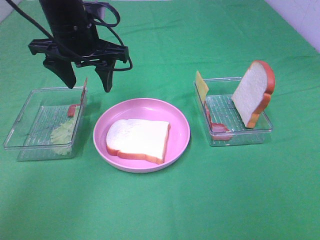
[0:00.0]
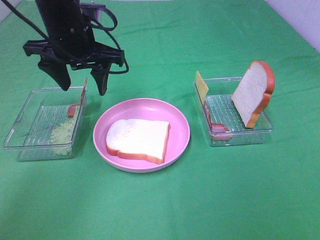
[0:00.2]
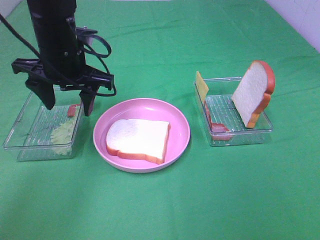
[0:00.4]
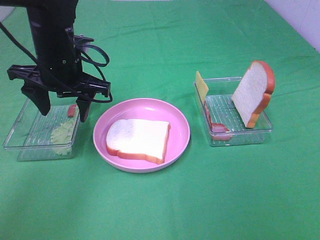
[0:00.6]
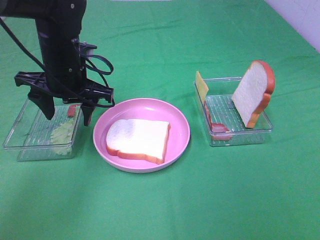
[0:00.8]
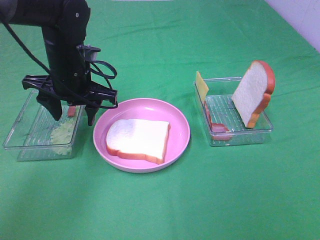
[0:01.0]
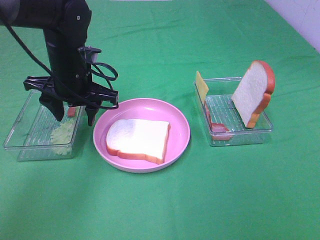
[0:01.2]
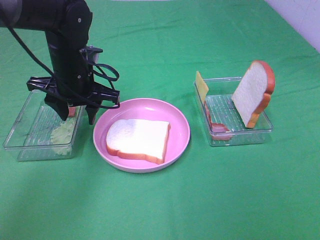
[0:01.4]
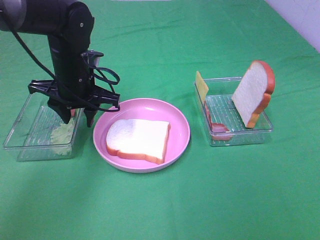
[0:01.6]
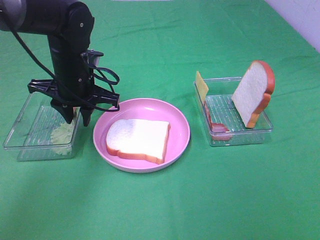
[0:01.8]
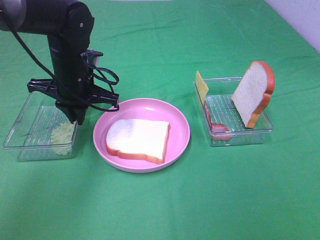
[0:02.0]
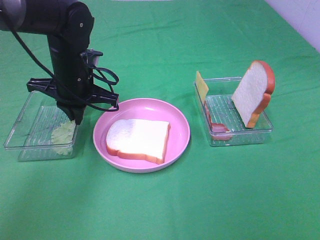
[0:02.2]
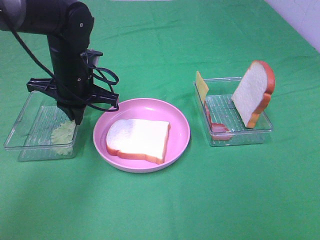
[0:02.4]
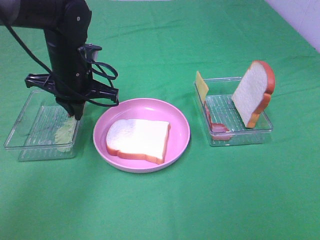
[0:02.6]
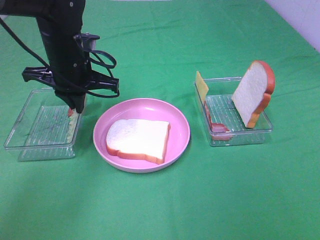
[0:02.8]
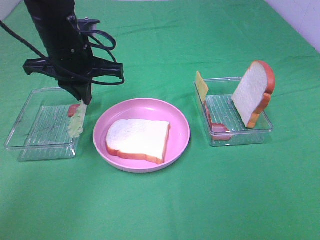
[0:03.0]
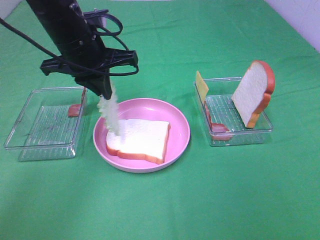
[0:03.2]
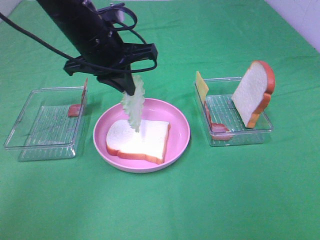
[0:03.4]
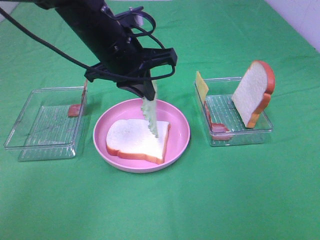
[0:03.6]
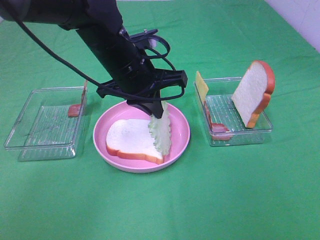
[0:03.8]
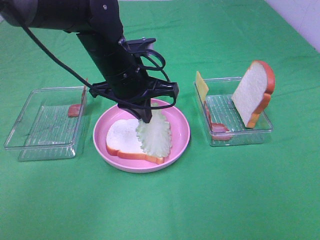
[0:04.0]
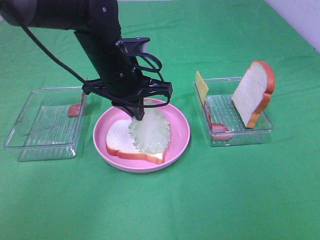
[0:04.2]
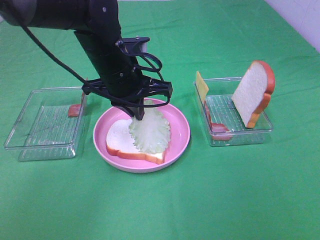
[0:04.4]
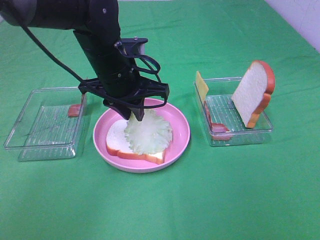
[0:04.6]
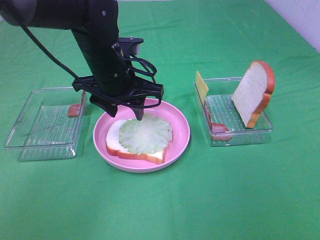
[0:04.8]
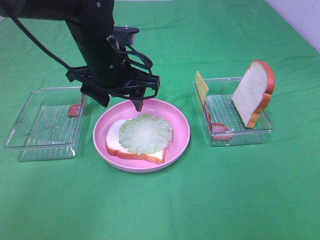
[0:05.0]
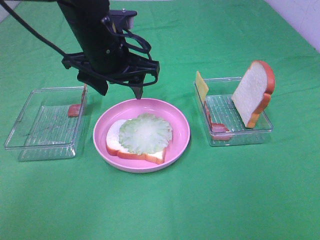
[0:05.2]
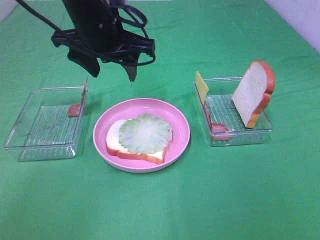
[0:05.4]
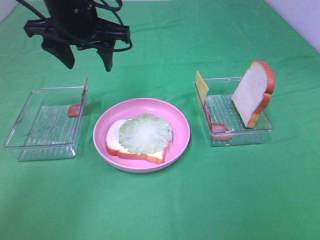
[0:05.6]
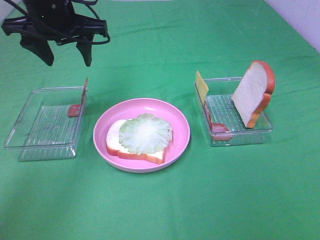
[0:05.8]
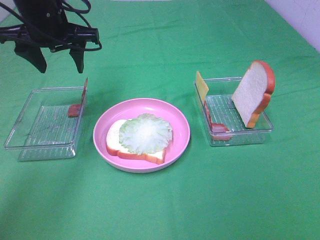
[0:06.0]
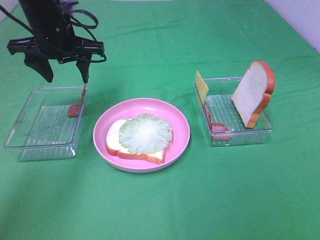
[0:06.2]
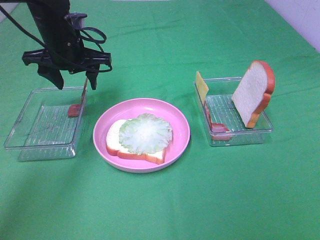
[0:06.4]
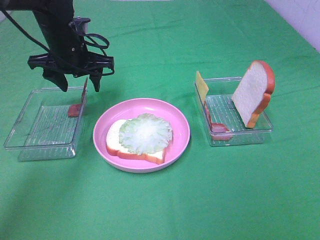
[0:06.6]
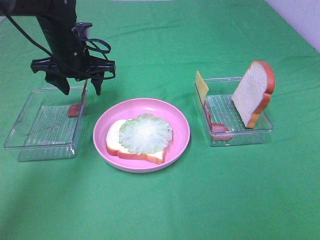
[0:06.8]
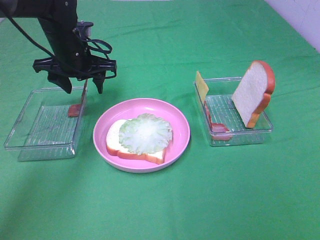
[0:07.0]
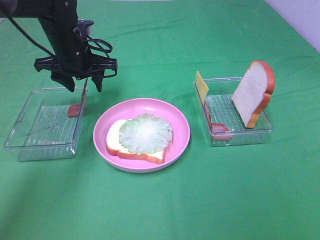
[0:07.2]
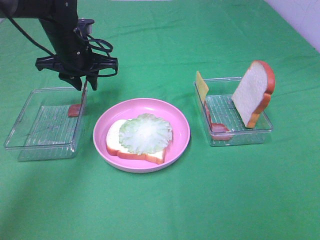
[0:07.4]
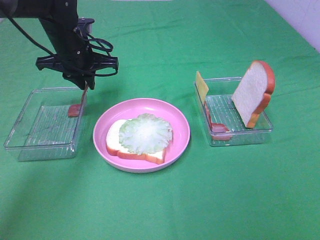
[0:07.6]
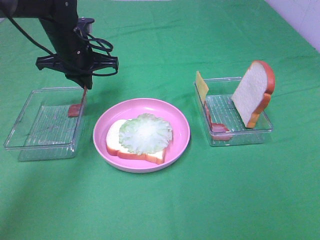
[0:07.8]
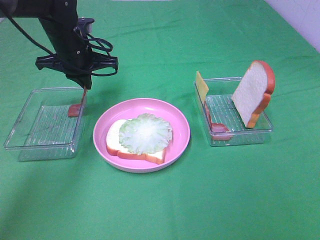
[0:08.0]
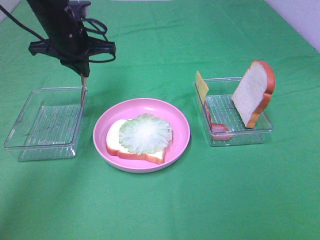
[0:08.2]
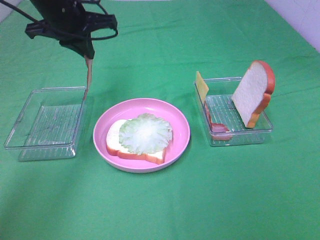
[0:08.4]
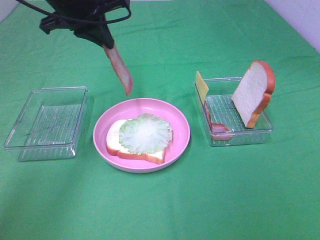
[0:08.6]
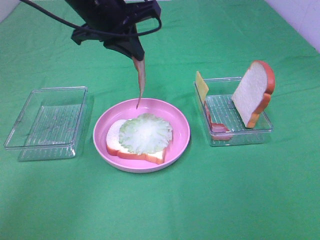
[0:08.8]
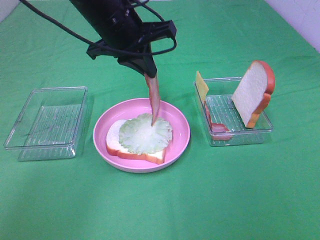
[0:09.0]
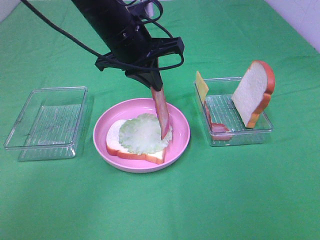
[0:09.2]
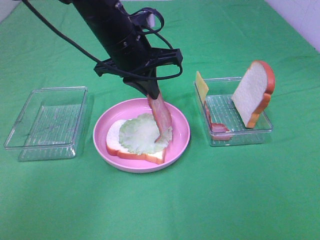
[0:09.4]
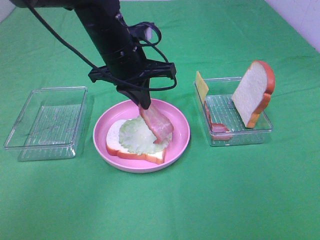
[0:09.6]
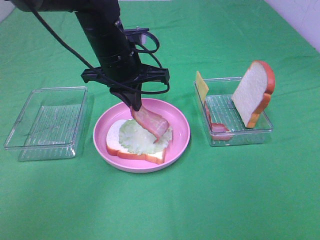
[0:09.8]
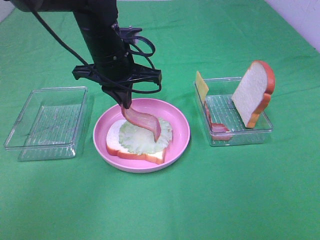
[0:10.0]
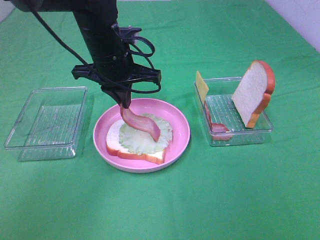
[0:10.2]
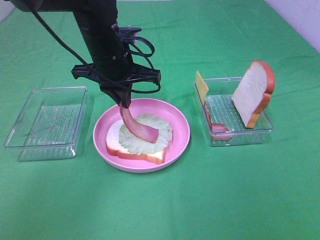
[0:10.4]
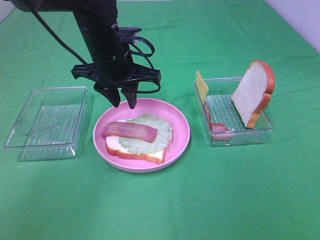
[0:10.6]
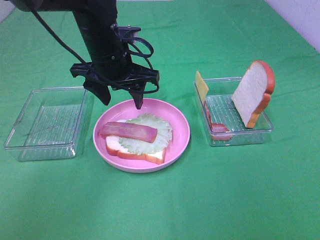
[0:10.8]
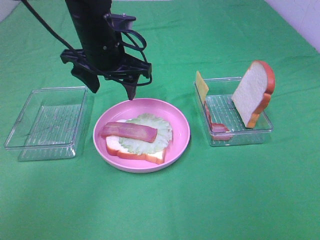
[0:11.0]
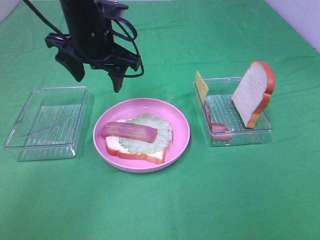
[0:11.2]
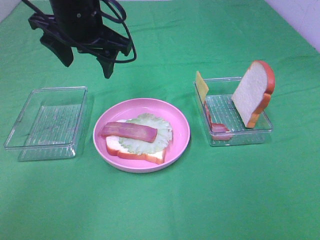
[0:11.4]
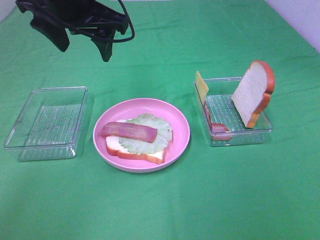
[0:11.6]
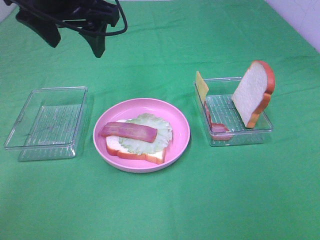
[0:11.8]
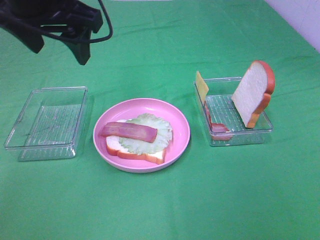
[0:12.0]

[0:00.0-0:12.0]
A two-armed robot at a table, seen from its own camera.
Task of the whole recording: Make sandwiches.
Step, 0:00.0 to 0:02.4: Left hand:grab the lettuce slice.
Step, 0:02.6 to 0:04.6: Left hand:place the lettuce slice on the bread slice.
Step, 0:04.8 to 0:08.0: Left hand:grab the bacon.
Step, 0:08.2 to 0:10.6: Left hand:place bacon on lettuce slice.
0:00.0 to 0:01.6: The left gripper shifts about 10 cm downward.
0:01.6 to 0:03.0: The left gripper goes about 5 cm upward, and closes up.
0:03.0 to 0:04.4: The left gripper is displaced to the right by about 5 cm.
0:04.4 to 0:06.0: The left gripper travels to the left, upward and forward by approximately 15 cm, and opens up.
0:06.0 to 0:07.6: The left gripper is displaced downward by about 10 cm, and closes up.
0:07.6 to 0:09.0: The left gripper shifts approximately 15 cm to the right, upward and backward.
0:09.0 to 0:10.4: The left gripper shifts roughly 5 cm downward.
0:10.4 to 0:12.0: The left gripper shifts about 15 cm upward, backward and to the left, and opens.

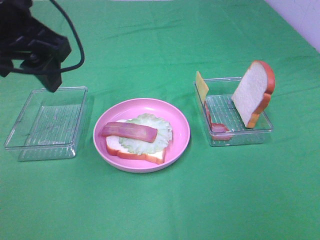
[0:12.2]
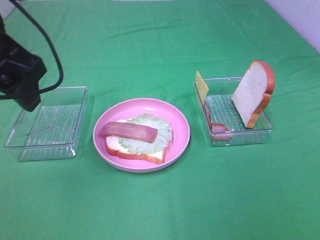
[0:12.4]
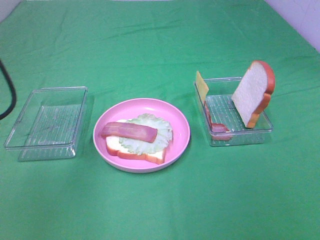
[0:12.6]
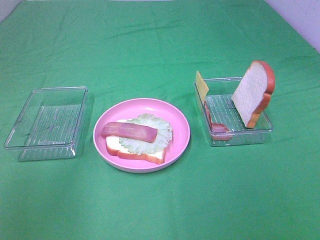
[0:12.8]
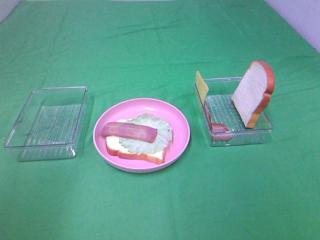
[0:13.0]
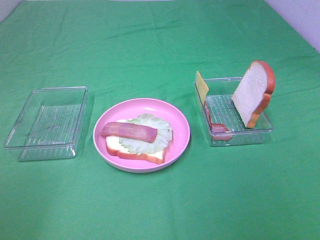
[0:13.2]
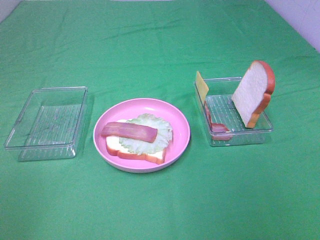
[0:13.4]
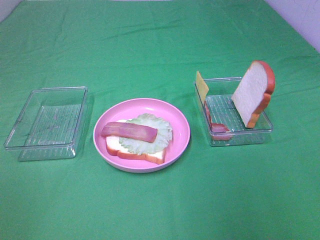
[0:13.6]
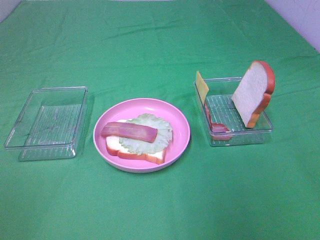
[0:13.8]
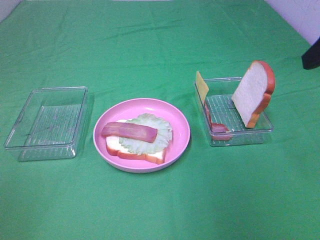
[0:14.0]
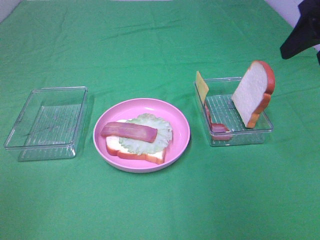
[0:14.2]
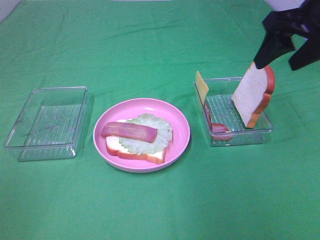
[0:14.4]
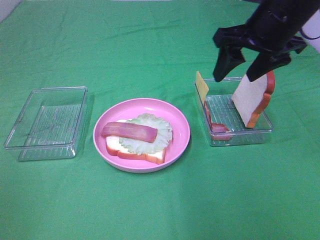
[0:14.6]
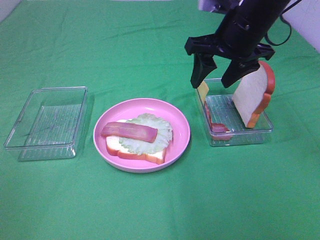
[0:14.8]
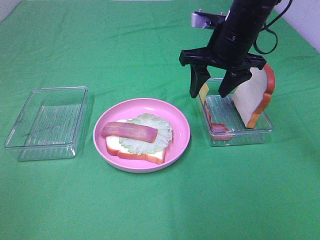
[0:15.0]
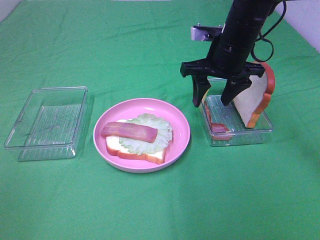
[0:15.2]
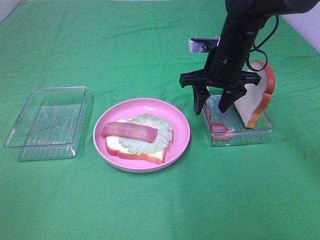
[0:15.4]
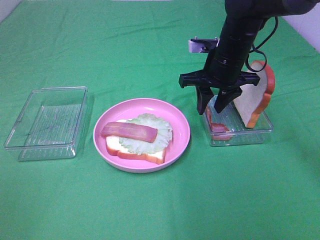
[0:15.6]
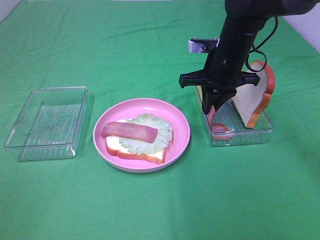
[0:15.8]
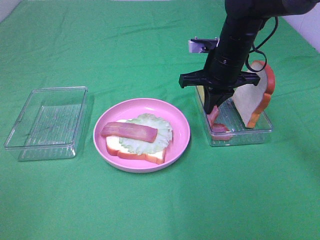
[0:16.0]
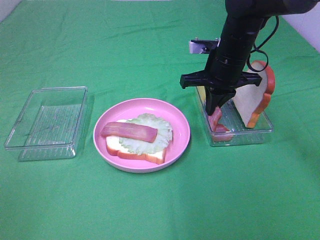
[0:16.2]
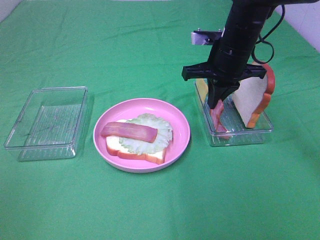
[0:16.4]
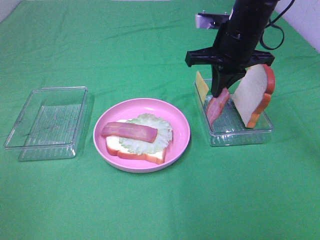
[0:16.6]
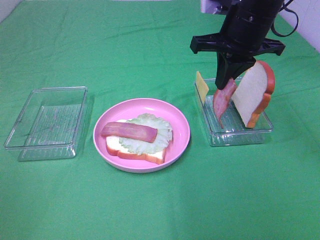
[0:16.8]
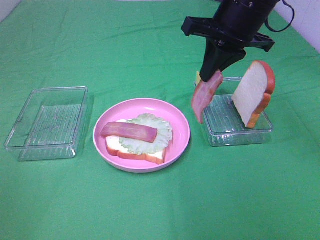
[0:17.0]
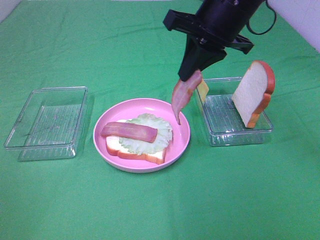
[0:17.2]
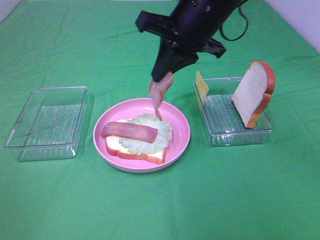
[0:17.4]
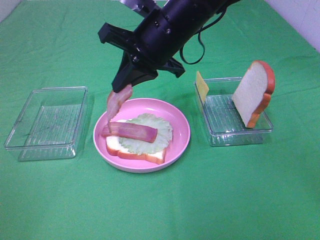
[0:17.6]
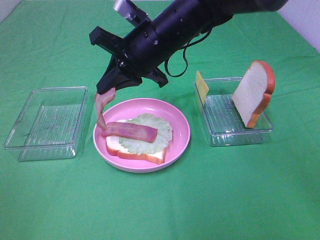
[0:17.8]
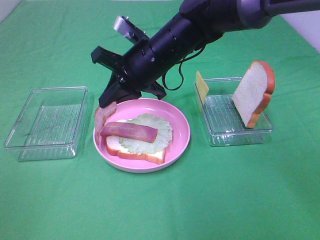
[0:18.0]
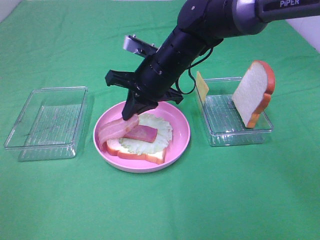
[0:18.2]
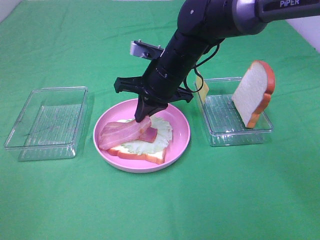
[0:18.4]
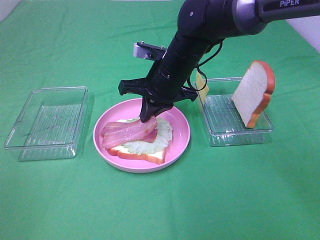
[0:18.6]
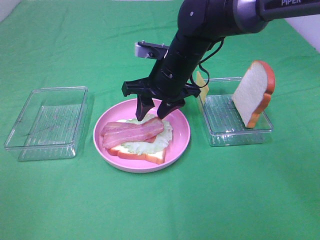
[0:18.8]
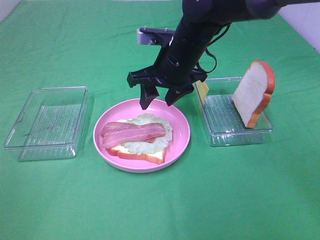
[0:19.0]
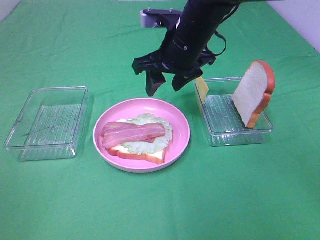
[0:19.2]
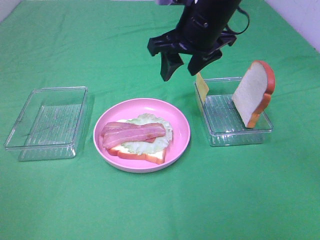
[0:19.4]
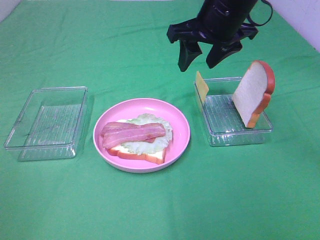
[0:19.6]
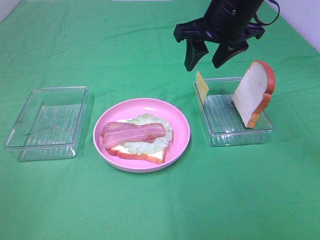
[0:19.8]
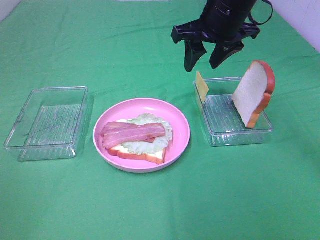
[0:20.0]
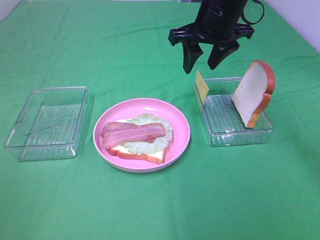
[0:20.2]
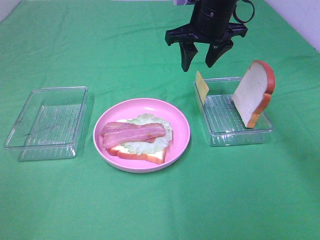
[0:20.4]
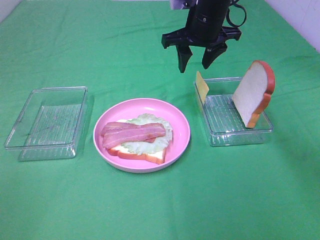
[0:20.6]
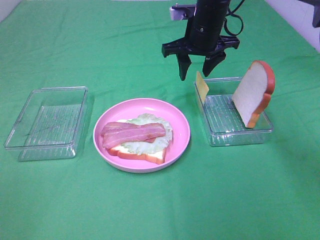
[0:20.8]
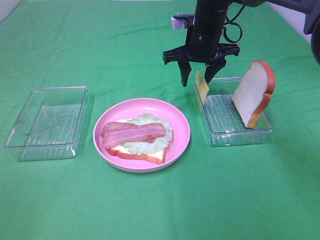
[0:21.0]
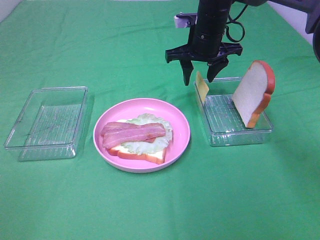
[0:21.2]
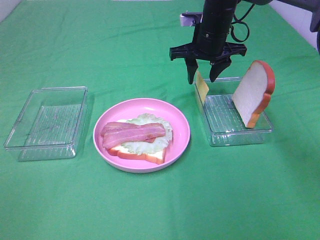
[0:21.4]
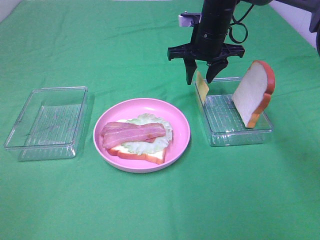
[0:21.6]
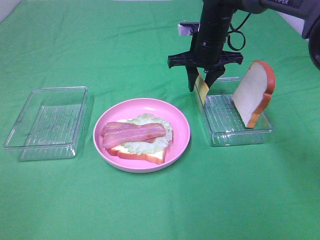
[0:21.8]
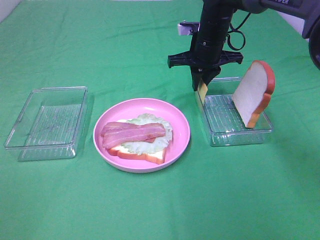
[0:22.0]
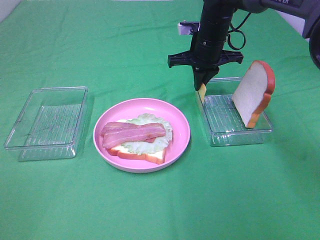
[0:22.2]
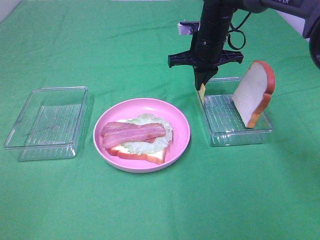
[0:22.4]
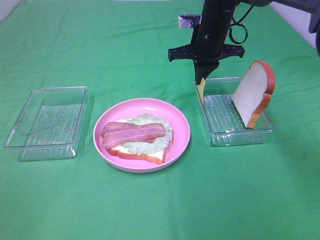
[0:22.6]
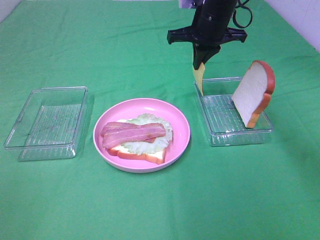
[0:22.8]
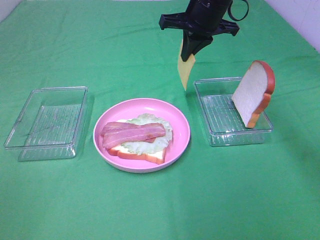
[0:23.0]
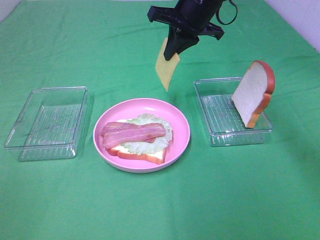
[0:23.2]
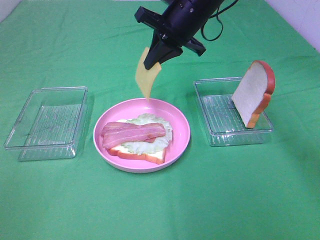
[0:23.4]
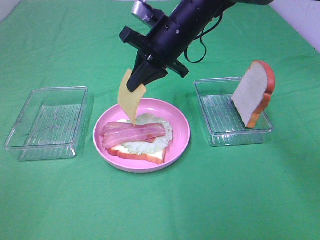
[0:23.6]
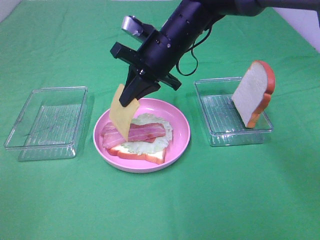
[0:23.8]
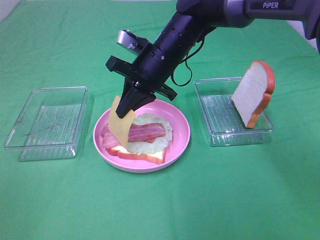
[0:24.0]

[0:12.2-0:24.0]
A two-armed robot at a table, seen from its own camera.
Task of the whole recording: Make sandwiches.
Step, 0:12.2 to 0:16.0: Right hand:grab the bacon.
Step, 0:16.2 to 0:18.8: Right hand:place bacon on bacon.
Step, 0:19.0 to 0:22.4: Right hand:grab the cheese slice.
0:12.2 to 0:13.6: The left gripper is displaced backward and to the left by roughly 30 cm.
0:13.6 to 0:15.2: The right gripper moves forward, to the left and downward, roughly 35 cm.
0:15.2 to 0:16.6: The right gripper closes its fingers.
0:16.6 to 0:18.2: The right gripper shifts about 15 cm to the left and downward.
0:18.2 to 0:19.6: The right gripper goes some 15 cm upward and to the right, and opens its fingers.
0:19.6 to 0:21.0: The right gripper moves forward and downward, about 10 cm.
0:21.0 to 0:22.6: The right gripper closes.
0:22.6 to 0:24.0: The right gripper travels to the left and backward by approximately 10 cm.
